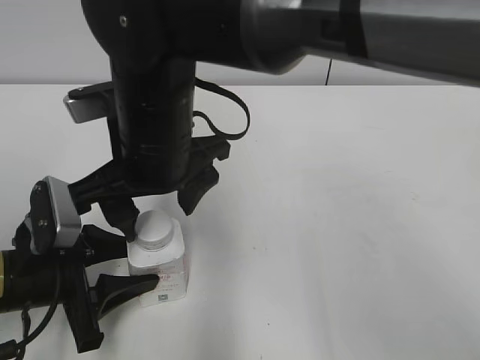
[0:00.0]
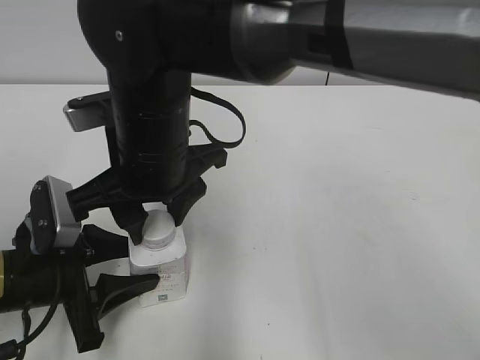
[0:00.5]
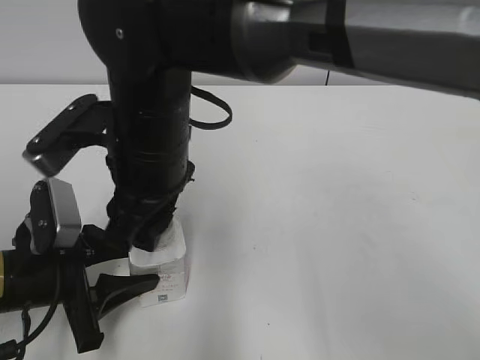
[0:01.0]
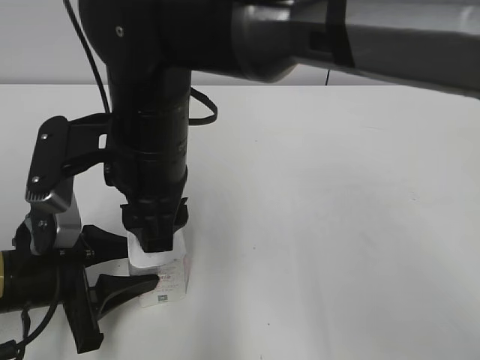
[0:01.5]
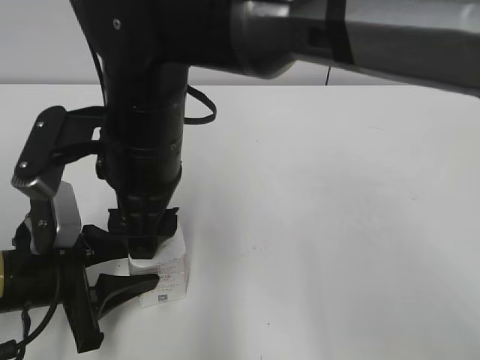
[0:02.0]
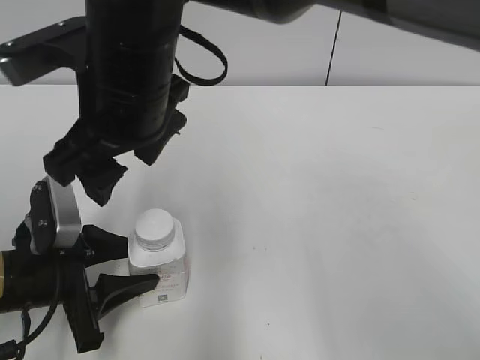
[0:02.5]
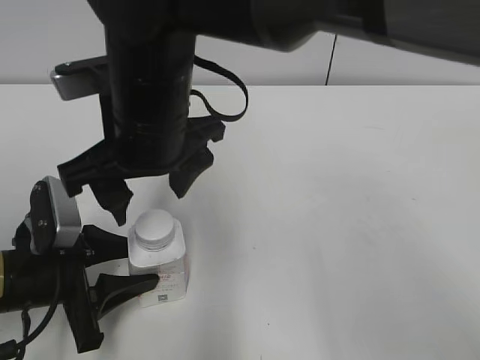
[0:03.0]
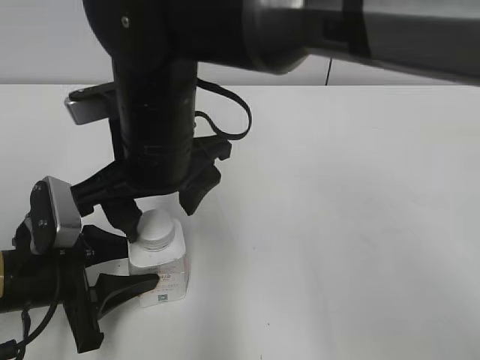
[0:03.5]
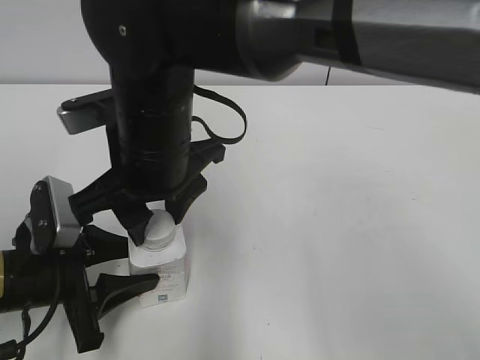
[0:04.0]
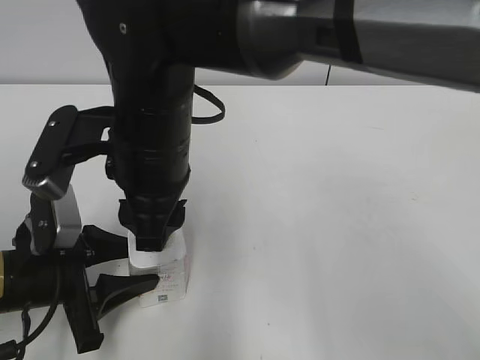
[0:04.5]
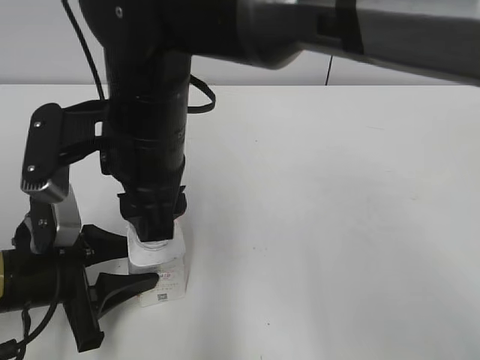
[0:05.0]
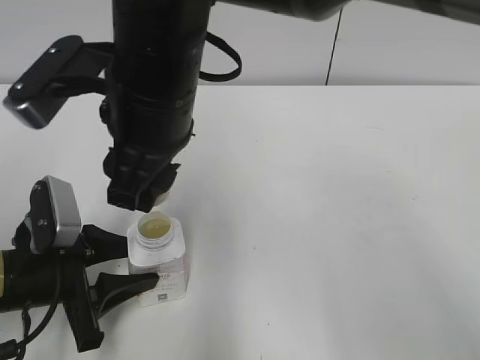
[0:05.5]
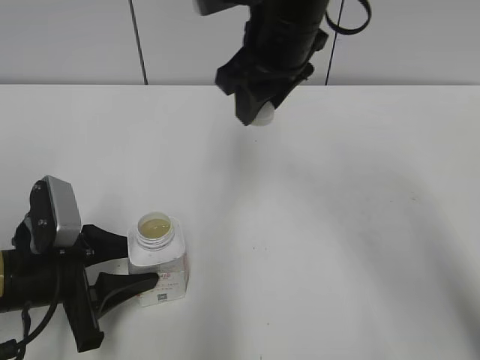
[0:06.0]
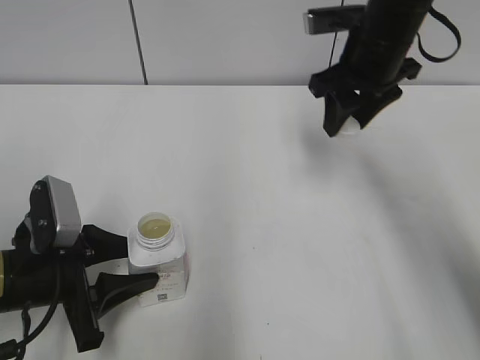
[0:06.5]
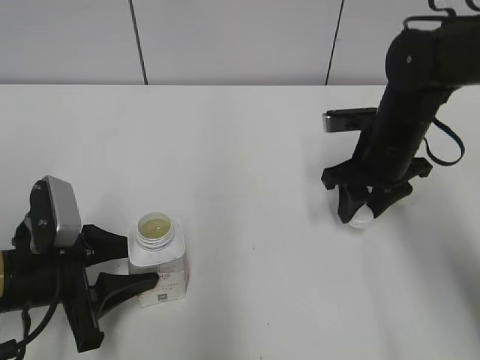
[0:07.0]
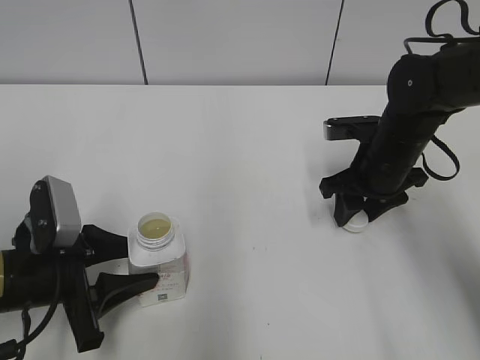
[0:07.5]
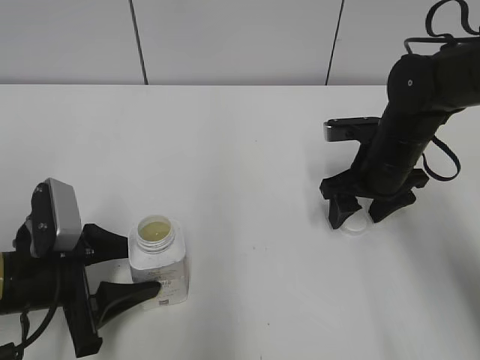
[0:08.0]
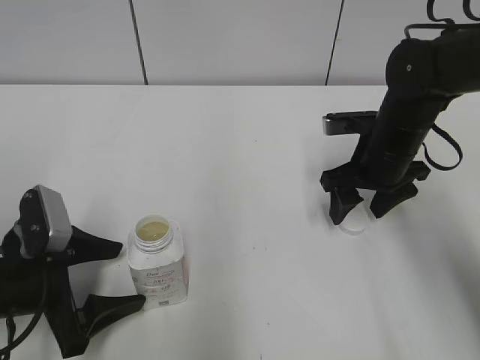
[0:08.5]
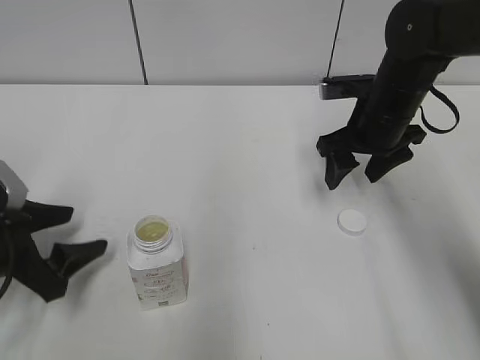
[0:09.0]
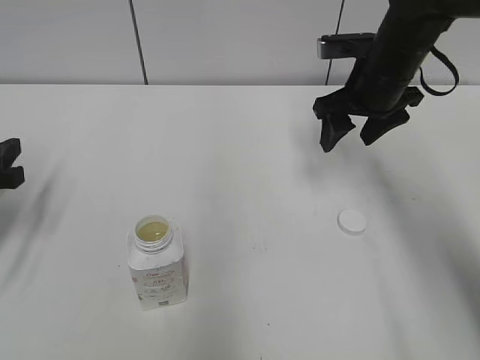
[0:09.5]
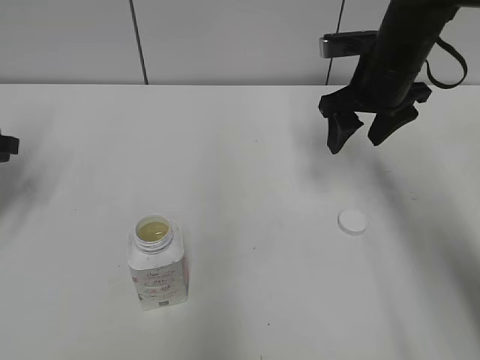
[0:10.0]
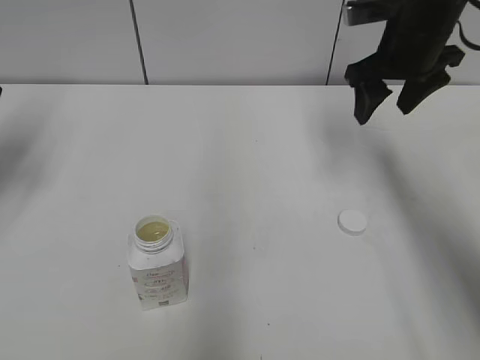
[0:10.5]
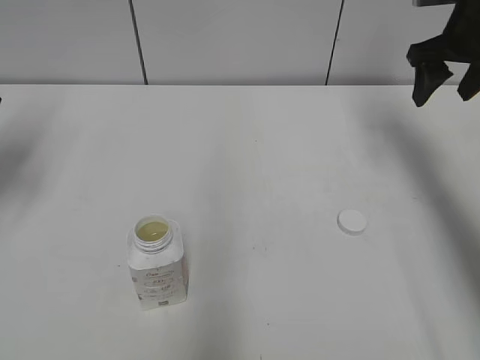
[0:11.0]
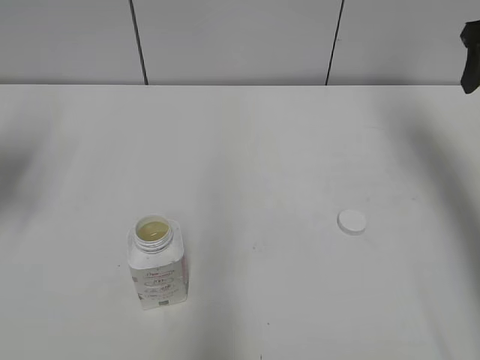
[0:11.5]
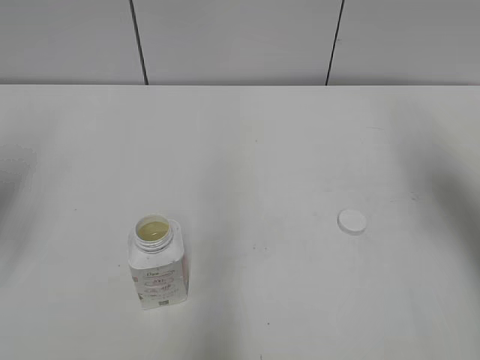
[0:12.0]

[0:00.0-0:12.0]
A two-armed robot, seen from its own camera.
Step, 0:00.0 to 0:05.0: Twist the bottle cap with the right hand.
Step, 0:05.5 to 0:07.5: Place the bottle cap on the right.
0:00.0 to 0:02.0: The right gripper closes, then reopens.
0:02.0 to 0:04.0: The right gripper closes up.
0:04.0 to 0:06.0: The right gripper travels to the right, forward and upward by approximately 15 cm.
0:06.0 to 0:08.0: The right gripper heads downward and to the right, covering about 20 cm, and opens.
0:08.0 to 0:10.0: The left gripper heads to the left, forward and upward, covering some 20 cm, and opens, then closes again. Meanwhile the right gripper heads upward, covering about 10 cm.
0:10.0 to 0:12.0: The left gripper goes approximately 10 cm upward and backward, while the right gripper heads to the right, backward and upward, covering roughly 20 cm.

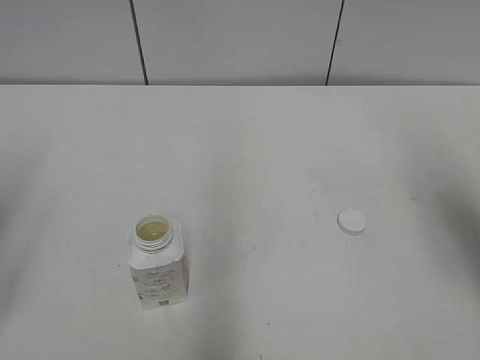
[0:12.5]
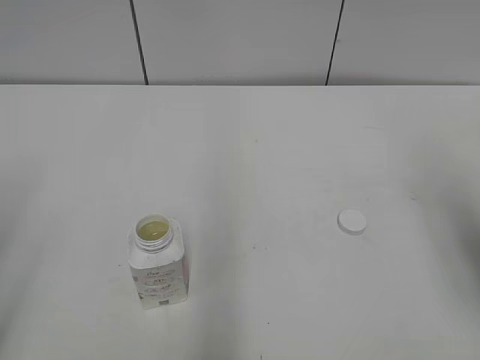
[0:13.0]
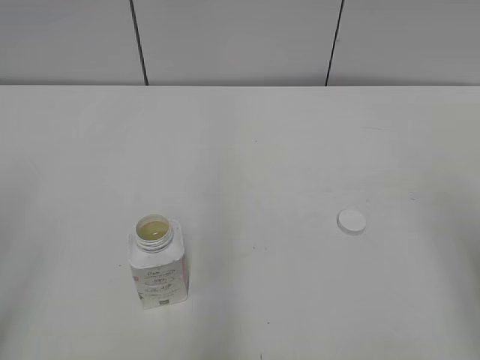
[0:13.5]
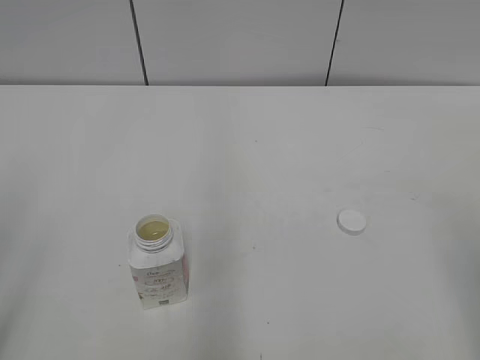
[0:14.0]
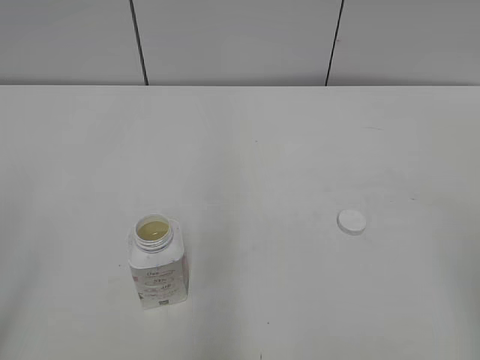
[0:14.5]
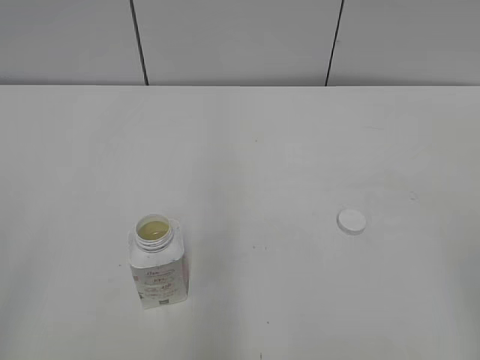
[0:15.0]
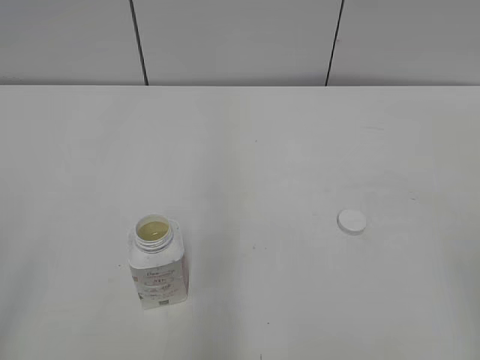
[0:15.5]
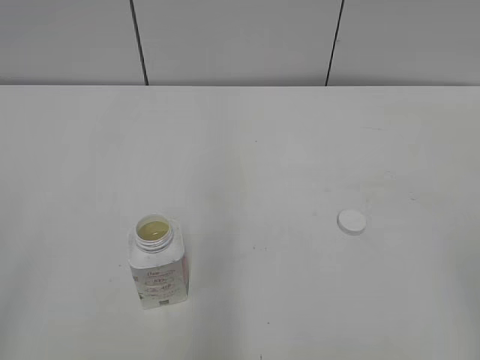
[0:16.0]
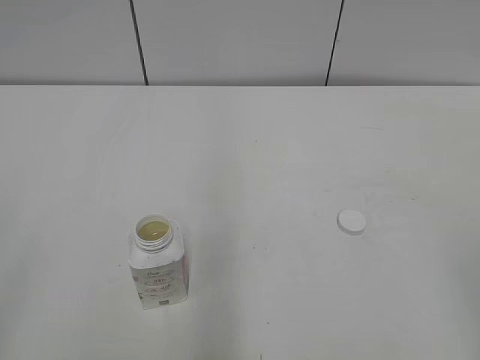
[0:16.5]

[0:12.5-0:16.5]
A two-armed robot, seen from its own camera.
0:12.5 to 0:14.5: The right gripper moves backward, about 20 cm.
